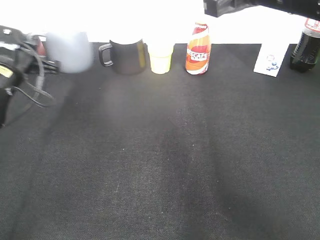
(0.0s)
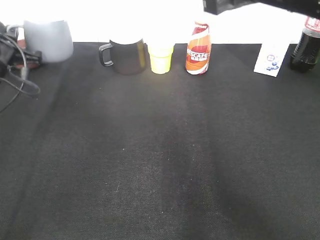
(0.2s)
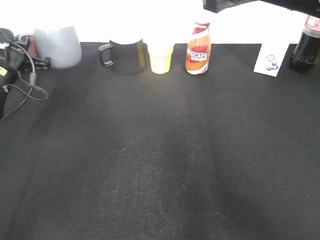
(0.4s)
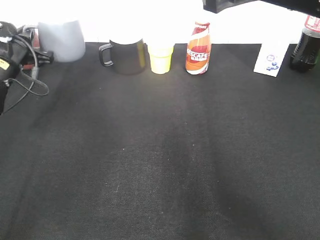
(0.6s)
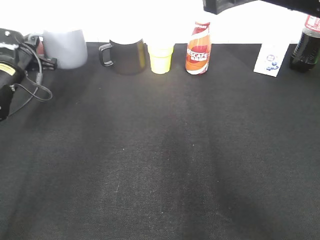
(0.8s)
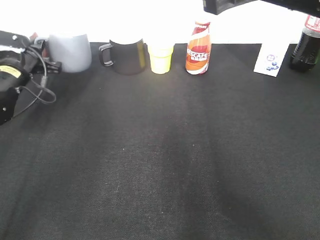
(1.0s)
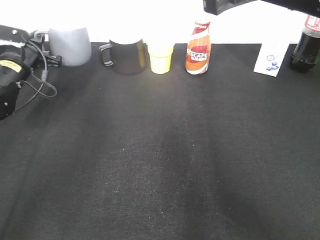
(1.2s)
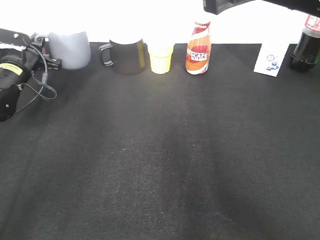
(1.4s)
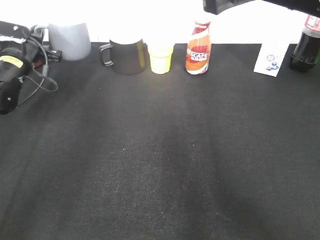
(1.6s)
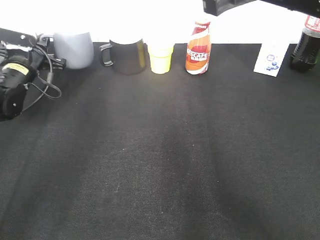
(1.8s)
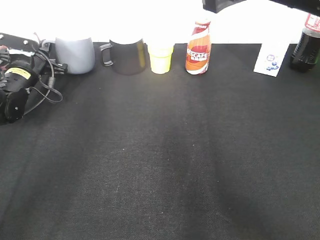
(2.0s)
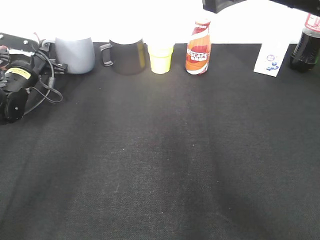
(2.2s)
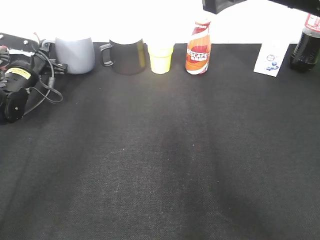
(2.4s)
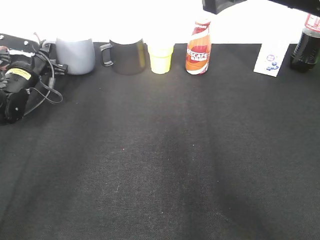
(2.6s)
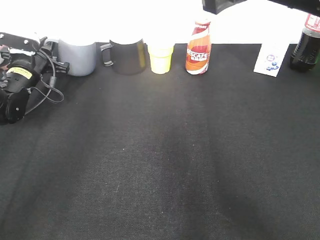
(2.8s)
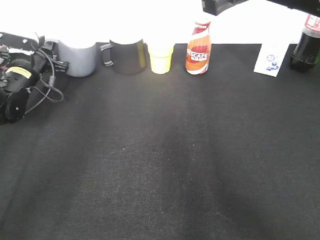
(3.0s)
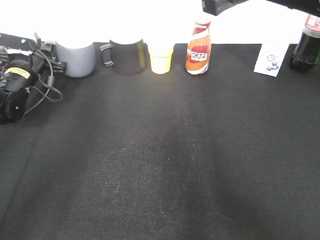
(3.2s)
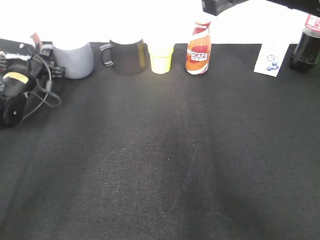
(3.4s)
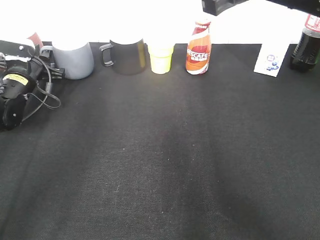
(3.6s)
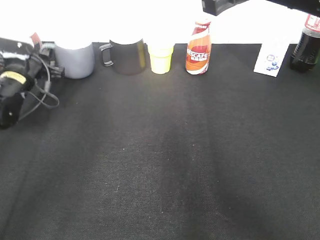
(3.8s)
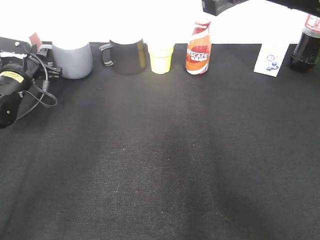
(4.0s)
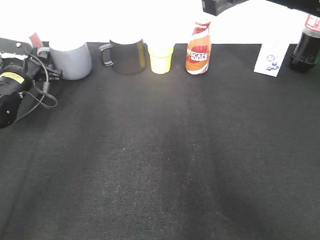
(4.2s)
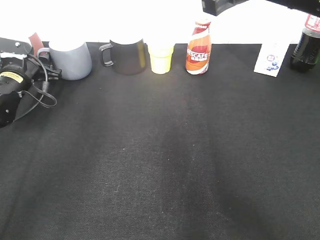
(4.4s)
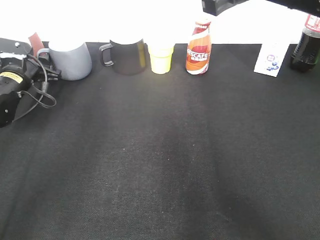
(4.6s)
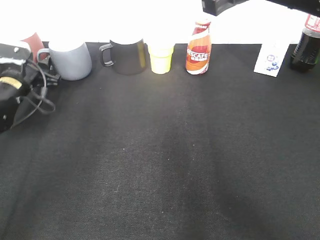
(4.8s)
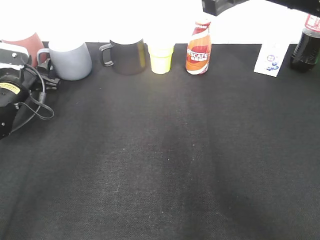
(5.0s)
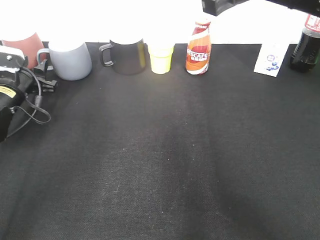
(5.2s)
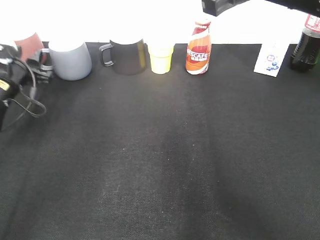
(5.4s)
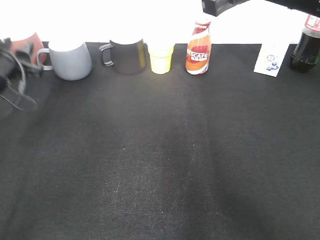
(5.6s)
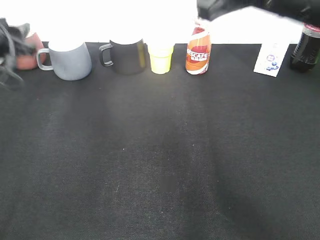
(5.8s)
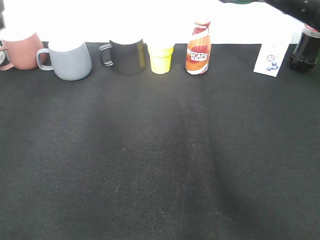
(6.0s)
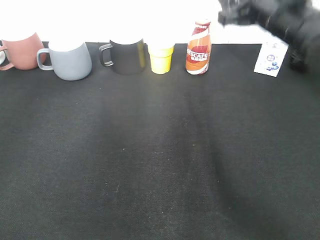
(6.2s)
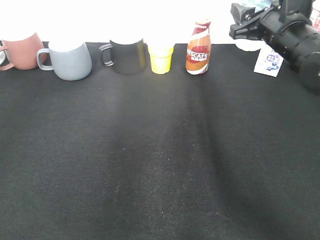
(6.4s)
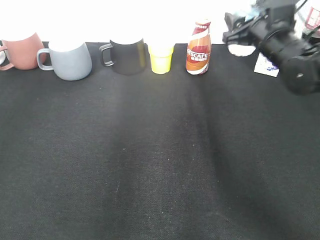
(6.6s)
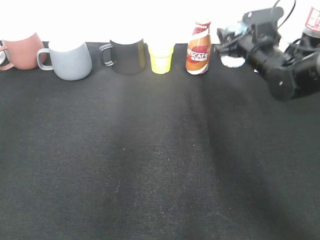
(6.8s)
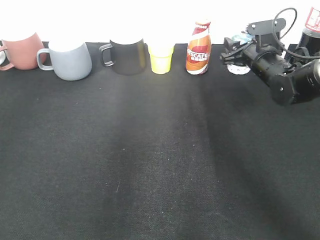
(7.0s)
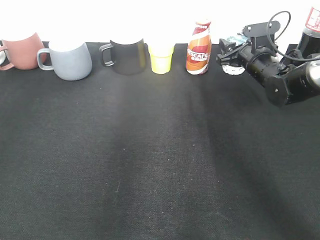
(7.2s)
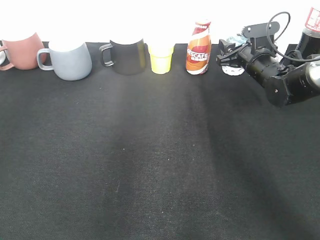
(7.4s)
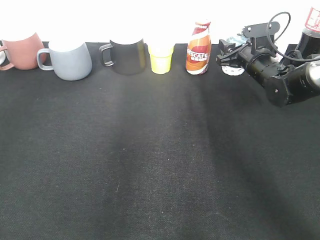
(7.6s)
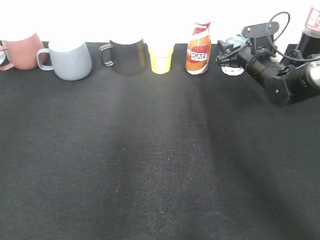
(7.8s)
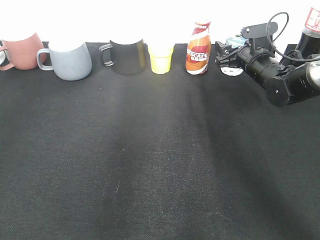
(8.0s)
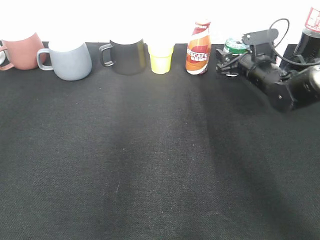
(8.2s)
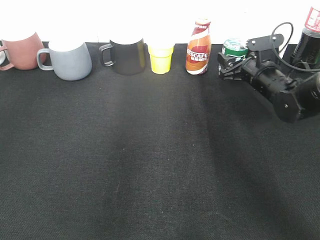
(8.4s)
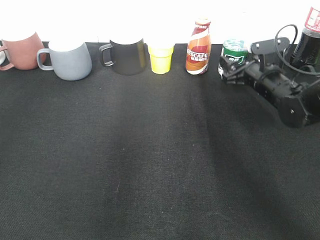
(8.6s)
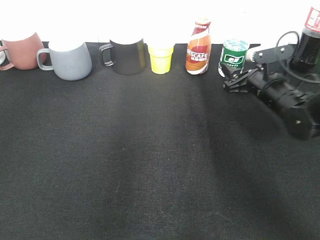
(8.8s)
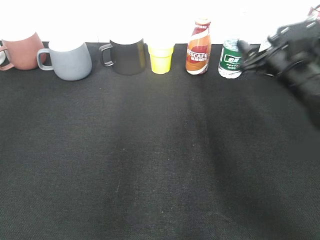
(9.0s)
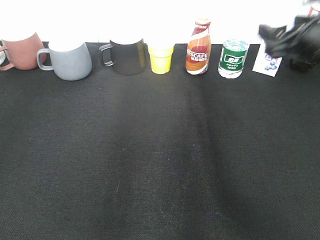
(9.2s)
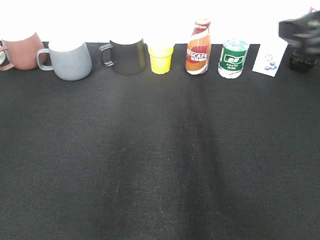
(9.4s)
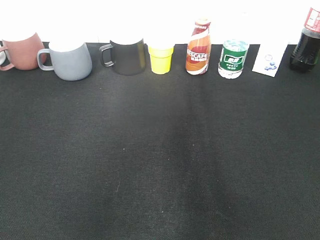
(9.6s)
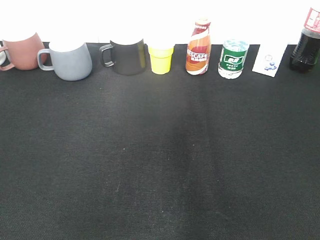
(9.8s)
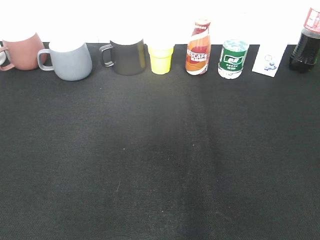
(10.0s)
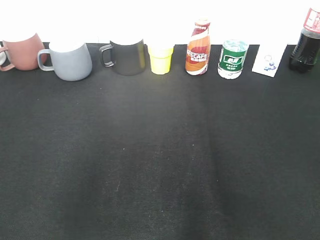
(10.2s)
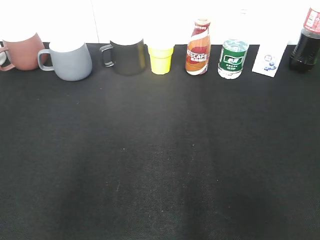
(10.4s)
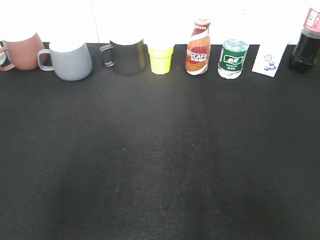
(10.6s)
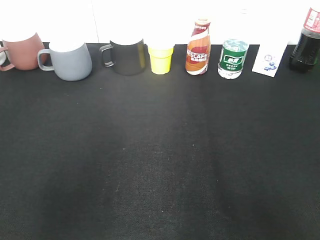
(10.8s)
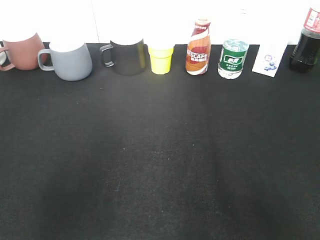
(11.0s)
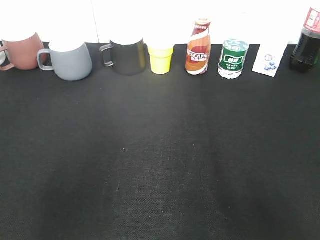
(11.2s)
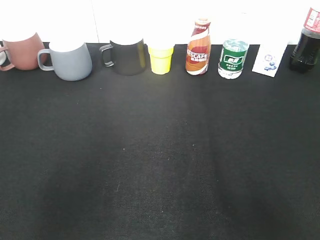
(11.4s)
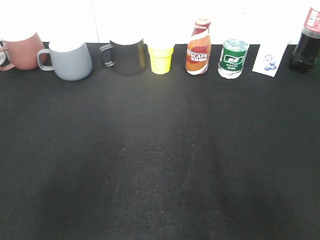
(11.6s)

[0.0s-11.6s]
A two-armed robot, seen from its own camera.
Step, 0.0s to 5.4s: Place the grey cup on the table with left gripper.
Step, 5.8s to 8.0s: Place the water bottle on the table with right gripper.
0.0s to 1.4s: The left gripper heads forward, covering some 5 cm.
1.4s to 2.8s: There are only small adjustments of the grippers.
2.8s to 4.4s: The left gripper opens its fingers.
4.4s to 5.8s: The left gripper moves upward and backward, about 15 cm.
5.8s to 7.2s: The right gripper moves downward, forward and to the right, approximately 30 cm. Meanwhile the left gripper shifts roughly 20 cm backward and upward.
7.2s to 8.8s: The right gripper moves backward, roughly 10 cm, and opens its fingers.
8.8s to 10.2s: The left gripper shifts some 20 cm backward. The right gripper goes some 50 cm backward and upward.
10.2s to 11.6s: The right gripper moves downward, about 10 cm.

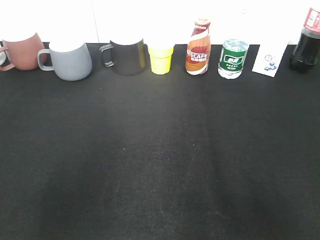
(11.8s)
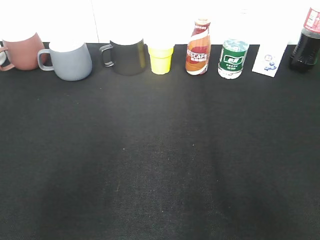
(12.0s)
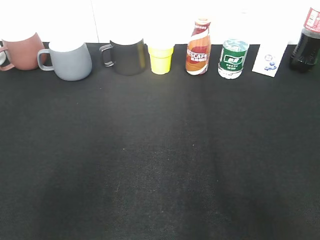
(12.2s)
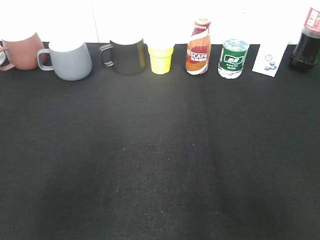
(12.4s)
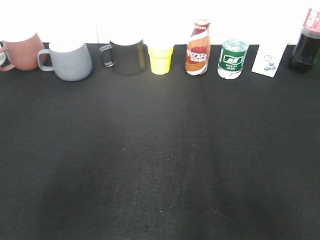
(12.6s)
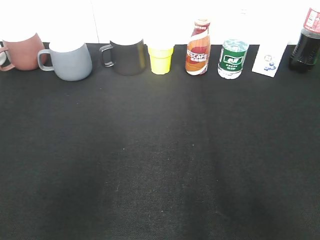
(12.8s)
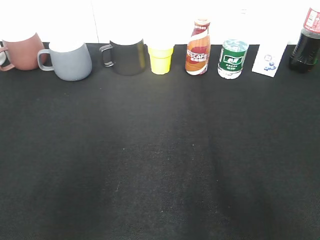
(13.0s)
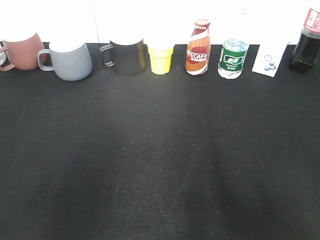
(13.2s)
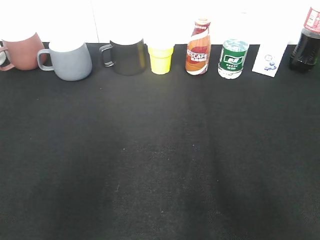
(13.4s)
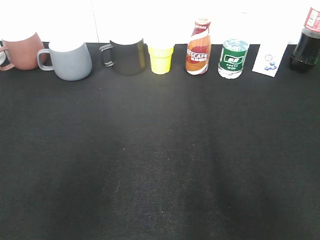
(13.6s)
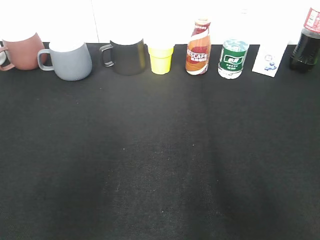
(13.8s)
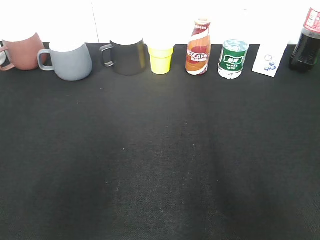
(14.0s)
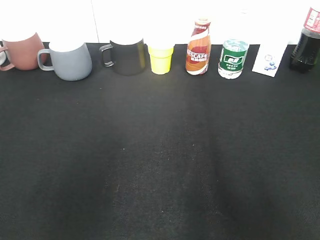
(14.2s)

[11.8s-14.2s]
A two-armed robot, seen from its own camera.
13.0s to 14.2s: Both grippers stay about where they are.

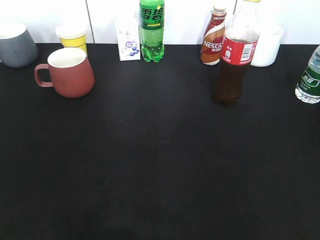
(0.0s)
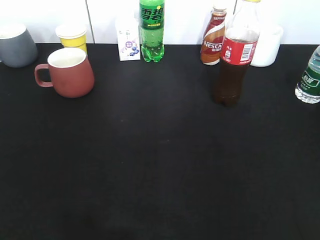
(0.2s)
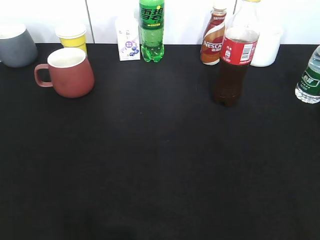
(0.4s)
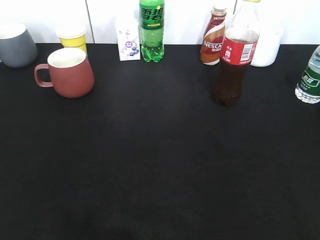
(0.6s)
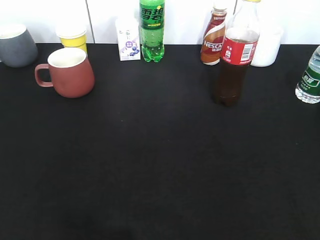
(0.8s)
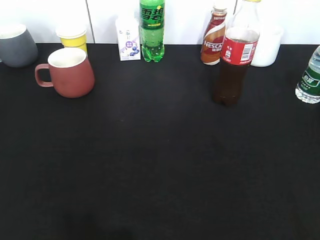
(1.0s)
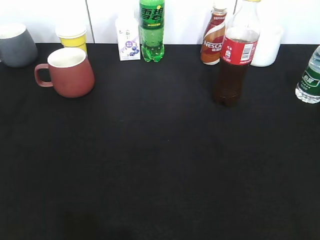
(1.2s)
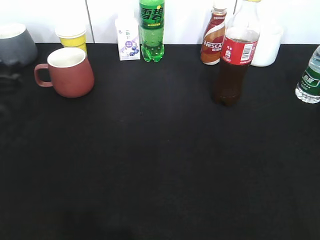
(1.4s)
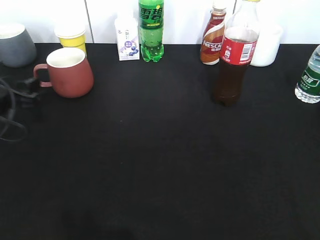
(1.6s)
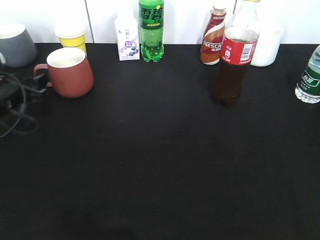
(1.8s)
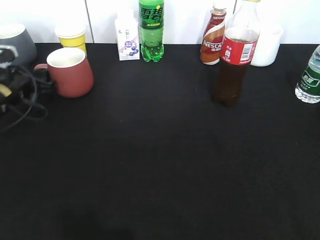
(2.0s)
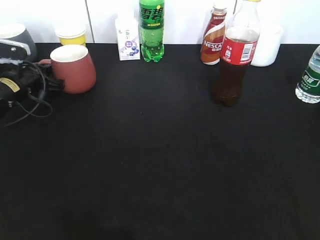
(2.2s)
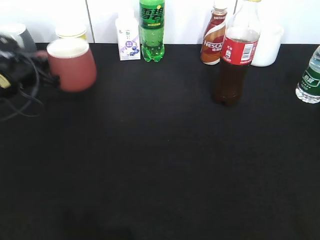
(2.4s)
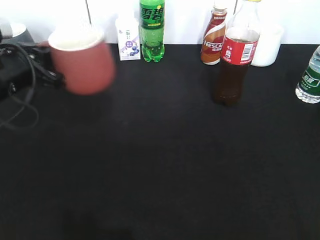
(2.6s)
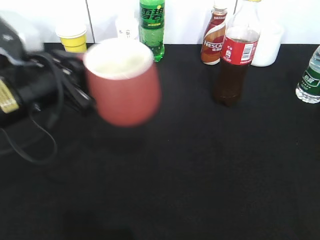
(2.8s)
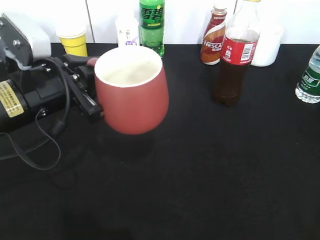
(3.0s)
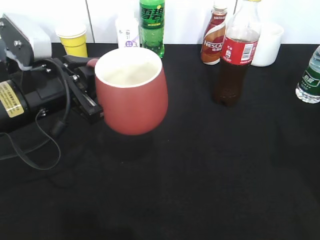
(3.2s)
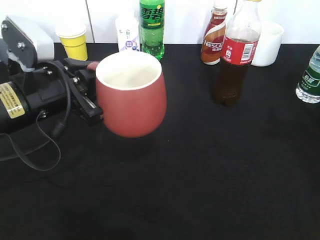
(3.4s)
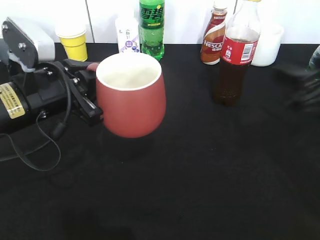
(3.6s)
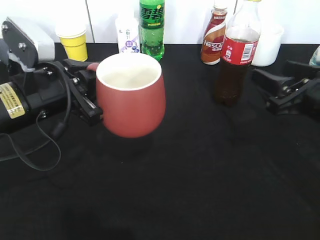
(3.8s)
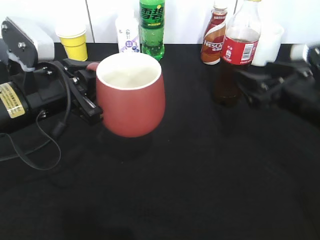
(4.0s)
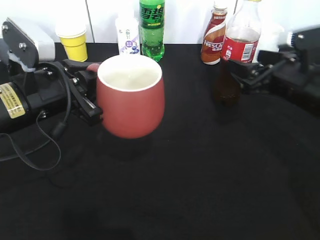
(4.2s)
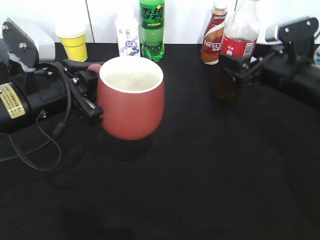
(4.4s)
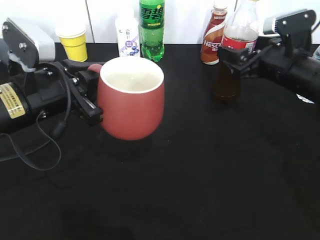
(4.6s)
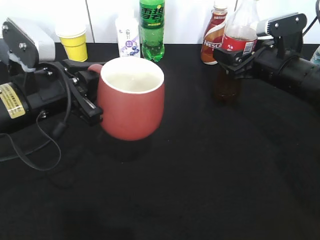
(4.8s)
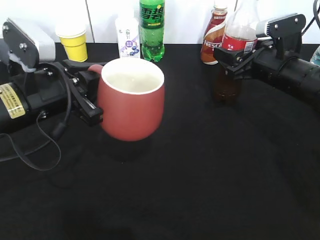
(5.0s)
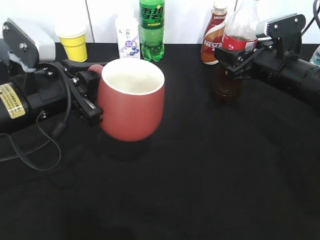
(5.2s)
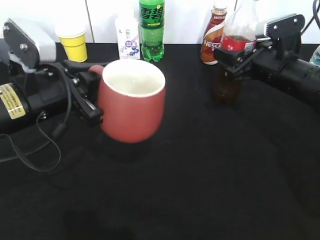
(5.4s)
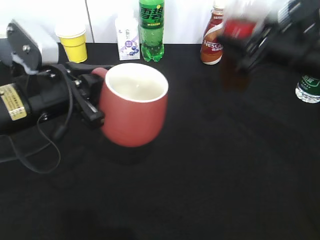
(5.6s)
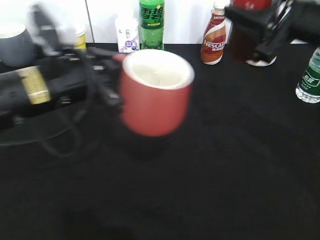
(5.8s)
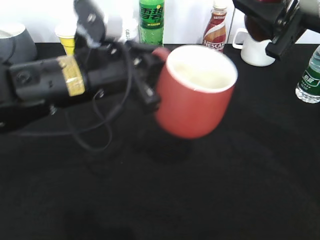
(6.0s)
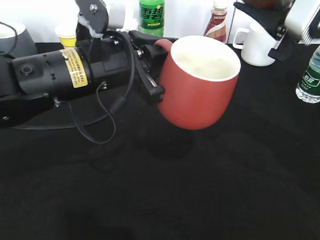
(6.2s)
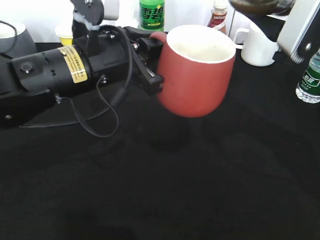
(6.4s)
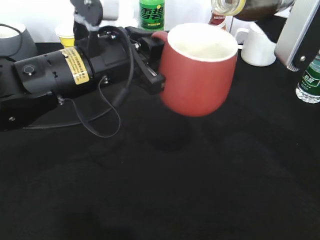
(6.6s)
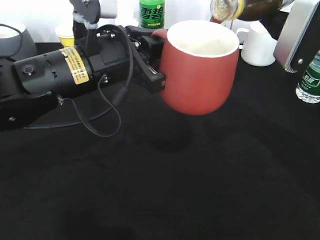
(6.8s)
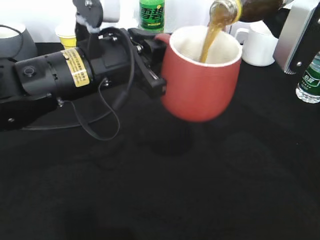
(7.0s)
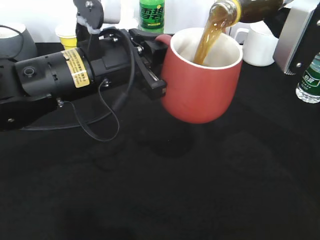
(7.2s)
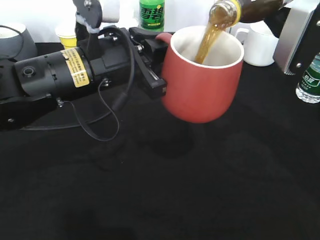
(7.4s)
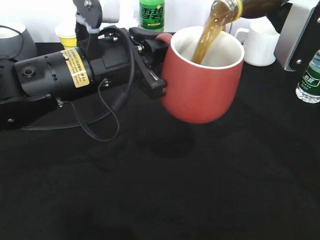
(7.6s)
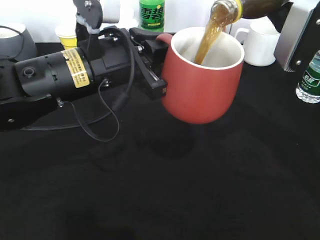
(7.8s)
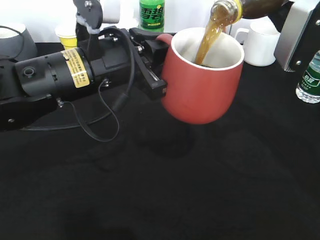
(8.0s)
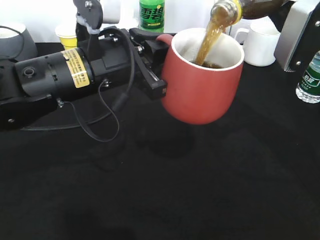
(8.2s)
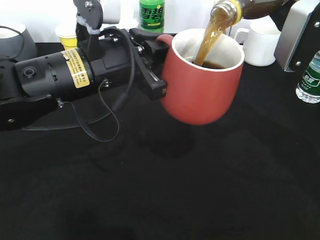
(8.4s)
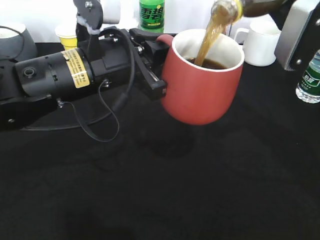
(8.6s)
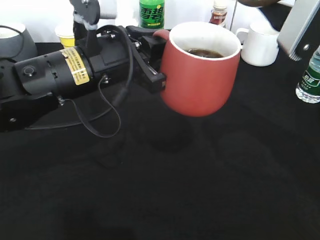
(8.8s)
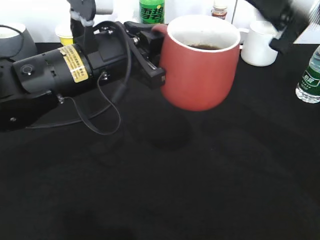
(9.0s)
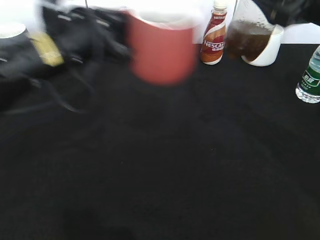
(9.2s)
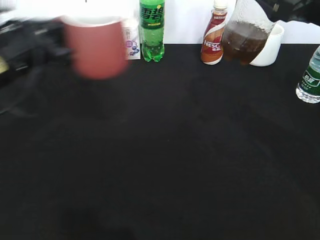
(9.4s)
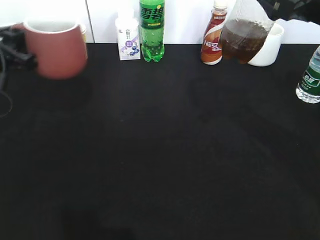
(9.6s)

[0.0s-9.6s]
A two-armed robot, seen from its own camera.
Step, 0.6s to 2.0s: Grasp the red cup with left gripper.
Step, 2.4s to 3.4s: Lift the red cup with left gripper.
Step, 3.6s to 5.2s: Grasp the bottle with cola with right gripper.
Step, 5.4s to 8.8s: Pour the cola from bottle to cup with right gripper.
0.0s to 1.6s: The left gripper goes approximately 35 cm forward and downward, and opens up.
1.6s to 3.2s: The left gripper goes some 15 cm to the right, upward and backward, and closes up. The right gripper goes roughly 15 cm forward and upward.
3.2s to 4.8s: The right gripper heads forward, downward and to the left, covering roughly 30 cm, and opens its fingers.
4.8s to 6.4s: The left gripper moves to the right, about 10 cm, while the right gripper travels upward and backward by some 15 cm, and closes up.
8.0s to 9.6s: The left gripper shifts about 20 cm to the left.
